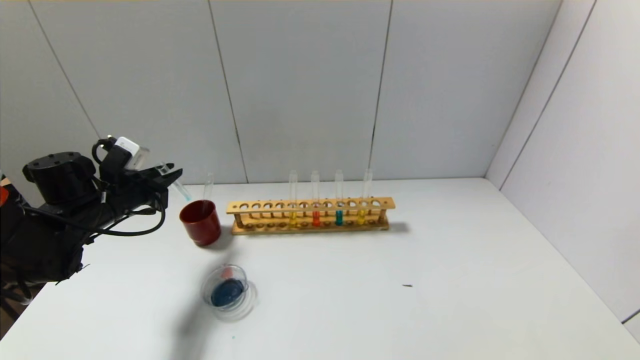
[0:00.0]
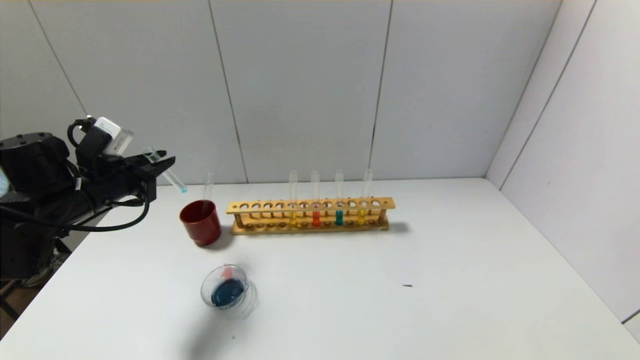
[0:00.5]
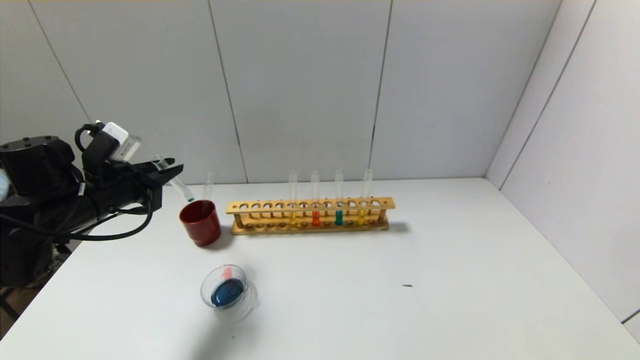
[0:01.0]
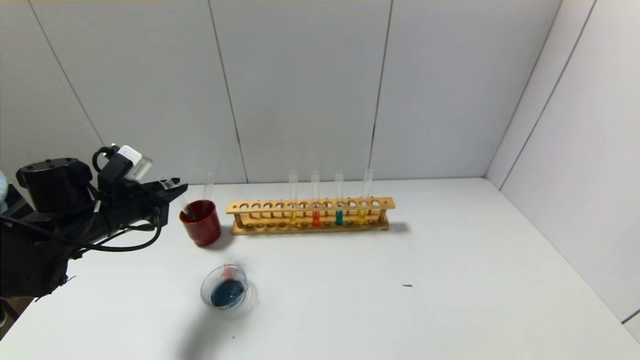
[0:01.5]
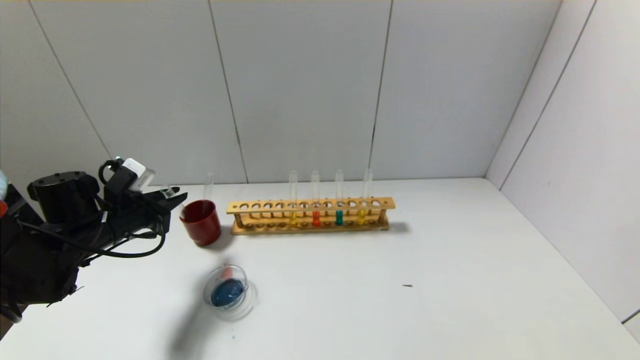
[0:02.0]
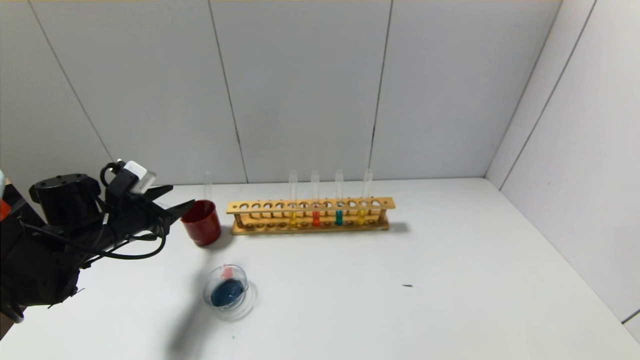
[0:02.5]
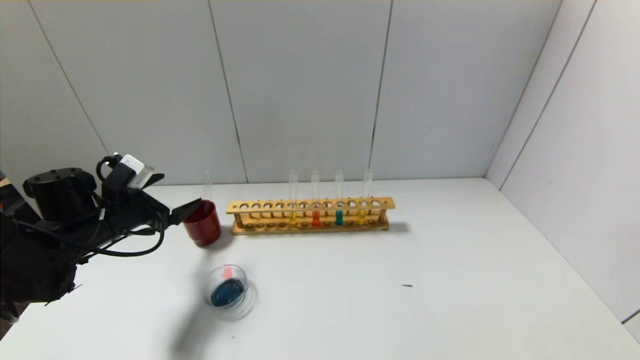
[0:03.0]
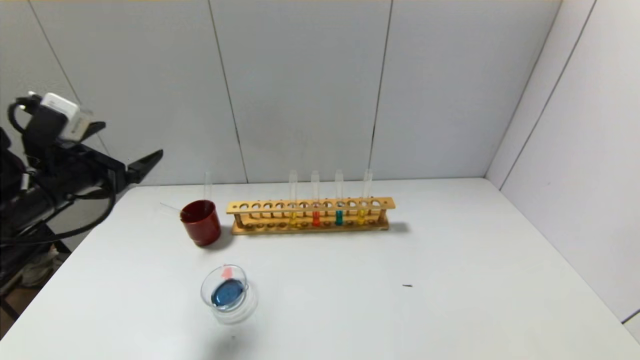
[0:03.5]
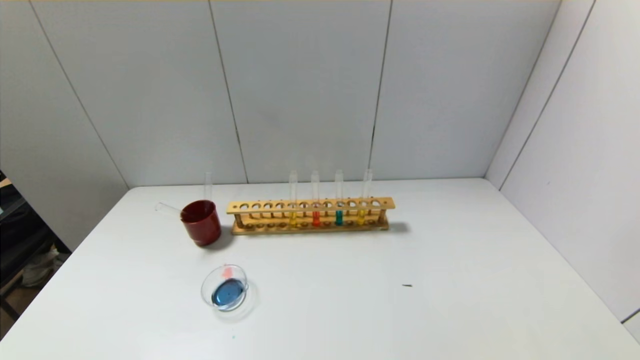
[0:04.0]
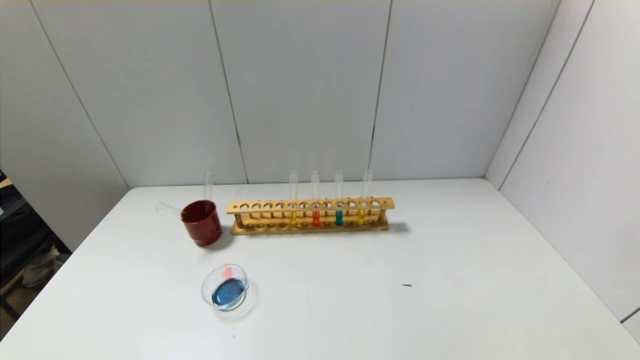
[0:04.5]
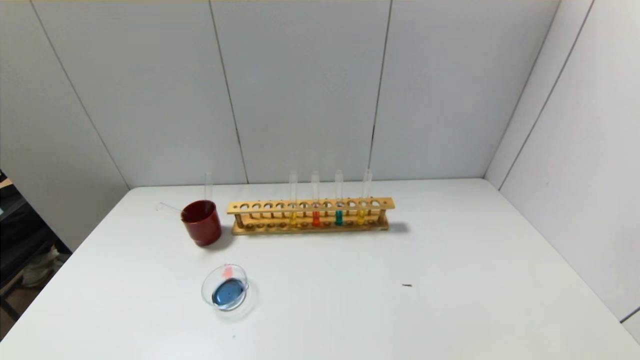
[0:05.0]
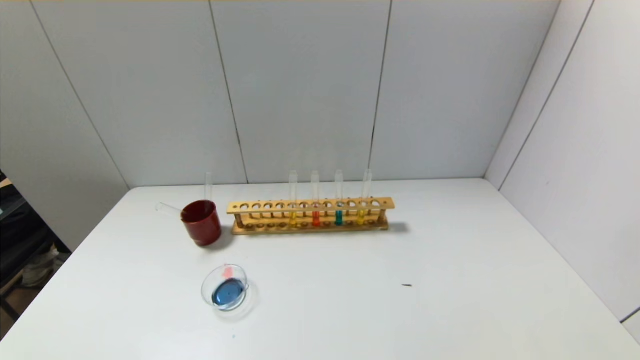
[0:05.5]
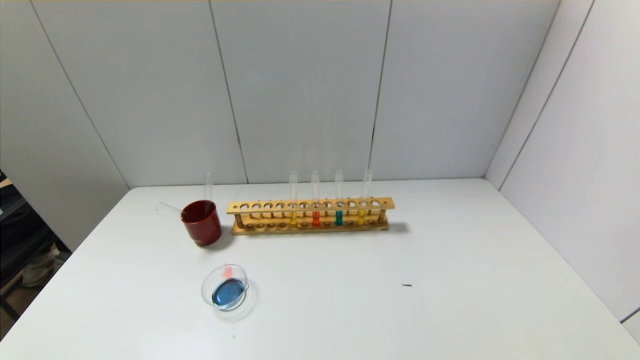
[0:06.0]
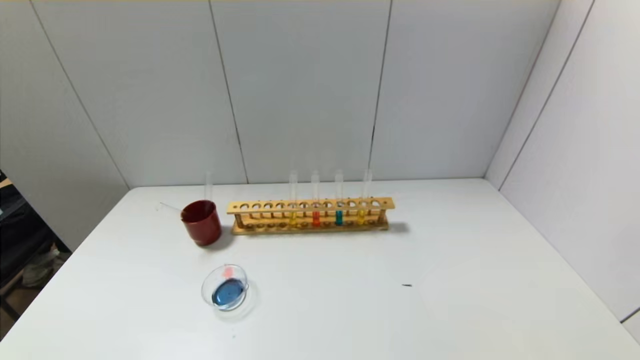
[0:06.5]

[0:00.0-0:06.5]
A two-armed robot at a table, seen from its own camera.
Step, 0:00.0 to 0:02.0: Place the test tube into the brown cup with the left gripper.
0:00.0 to 0:02.0: The grippers stay close to where they were, moving slightly.
0:02.0 to 0:04.5: The left gripper heads backward, covering approximately 35 cm, and opens.
